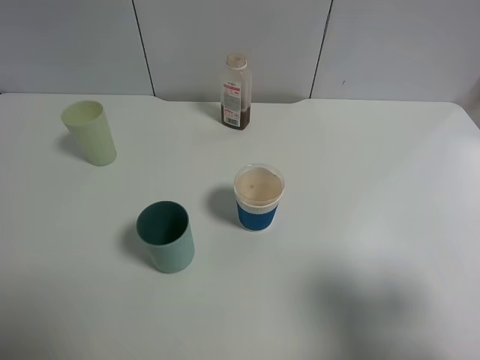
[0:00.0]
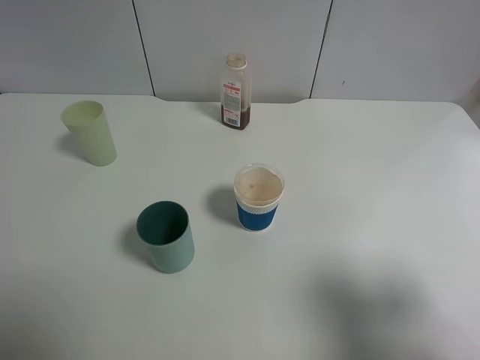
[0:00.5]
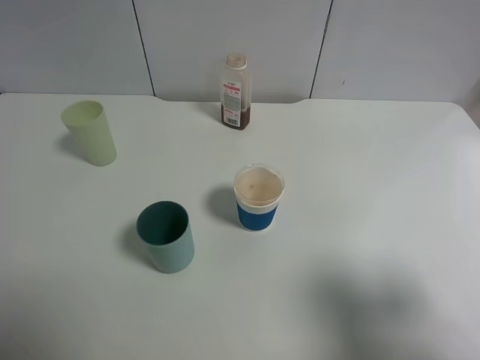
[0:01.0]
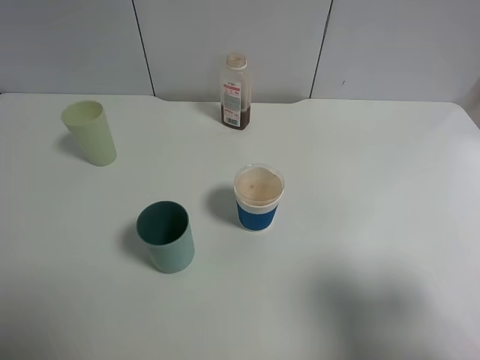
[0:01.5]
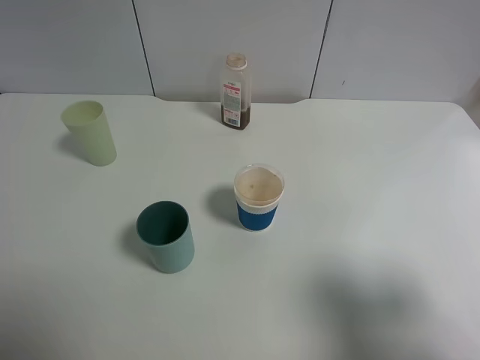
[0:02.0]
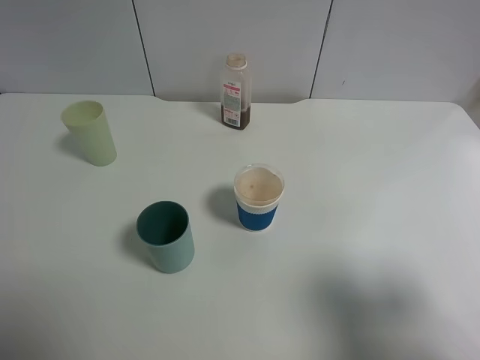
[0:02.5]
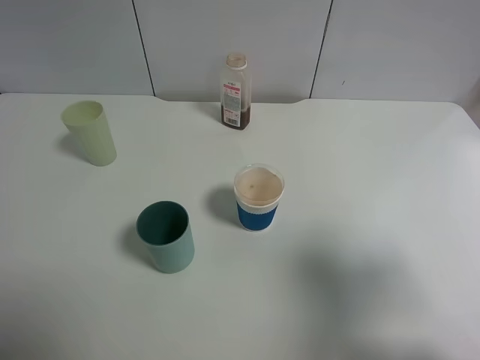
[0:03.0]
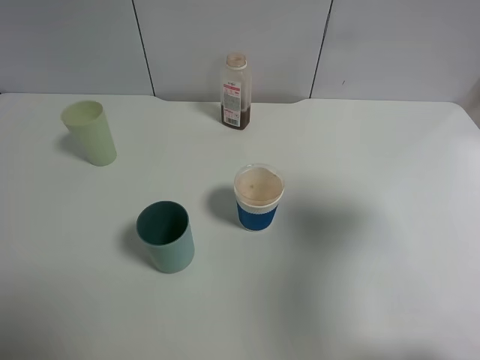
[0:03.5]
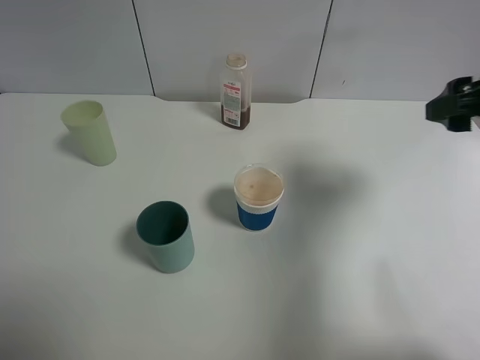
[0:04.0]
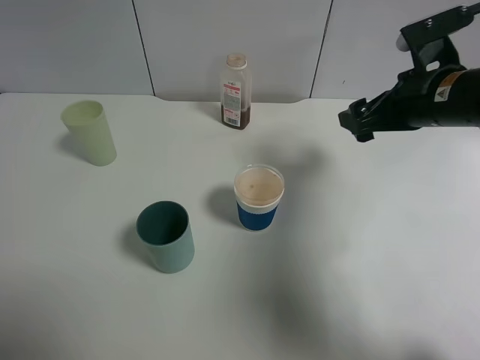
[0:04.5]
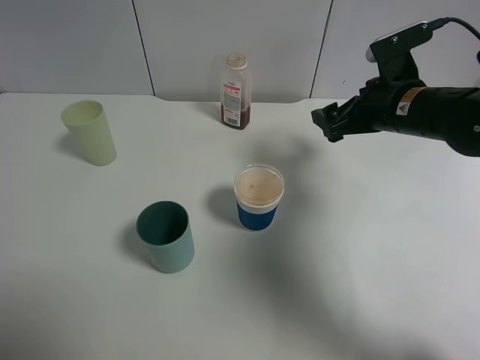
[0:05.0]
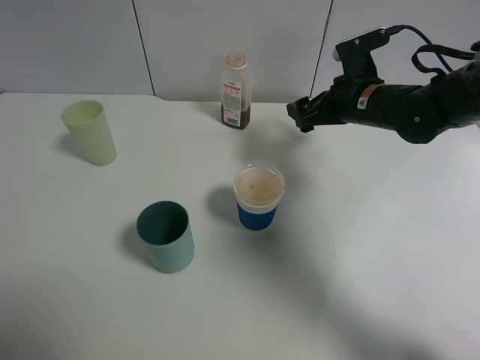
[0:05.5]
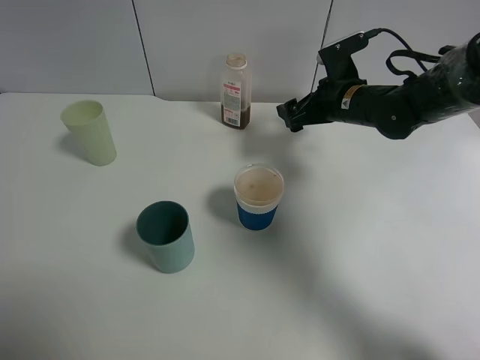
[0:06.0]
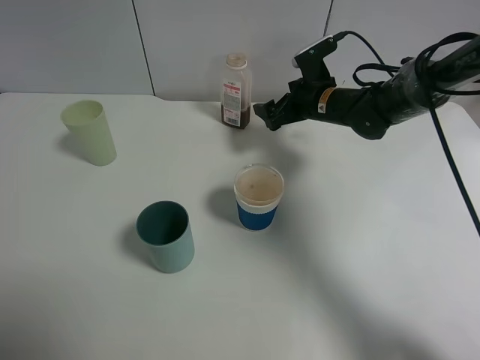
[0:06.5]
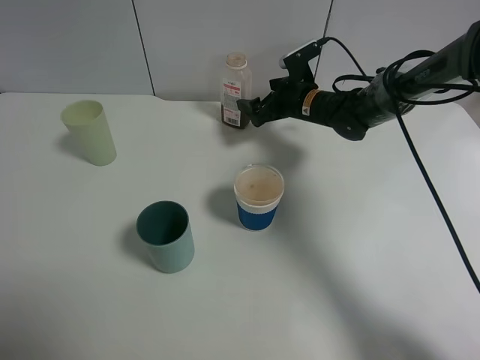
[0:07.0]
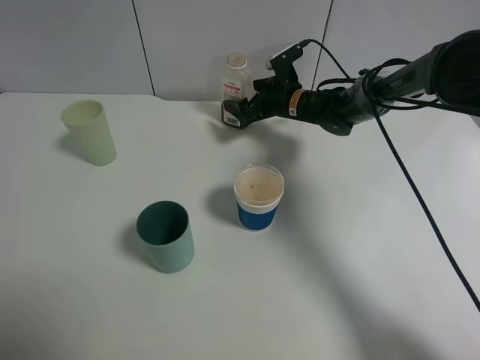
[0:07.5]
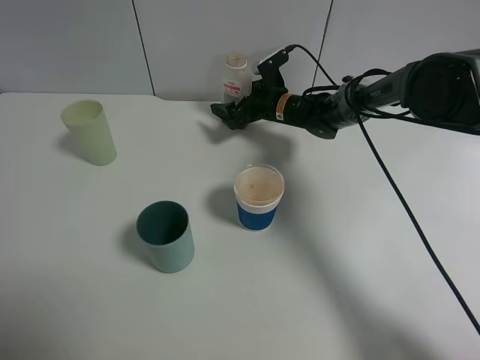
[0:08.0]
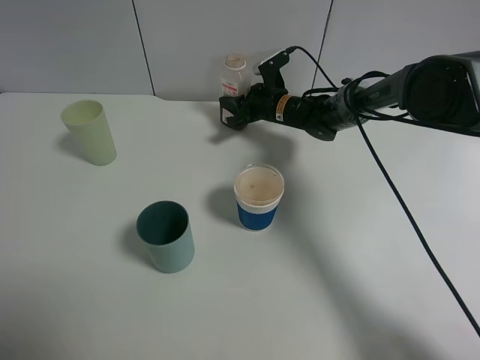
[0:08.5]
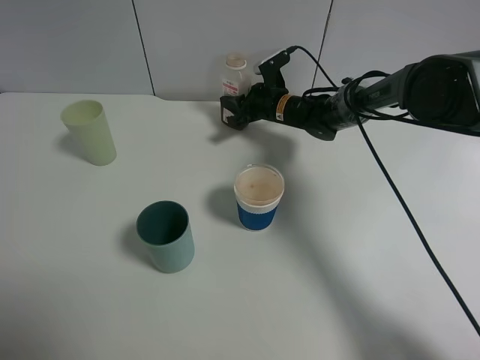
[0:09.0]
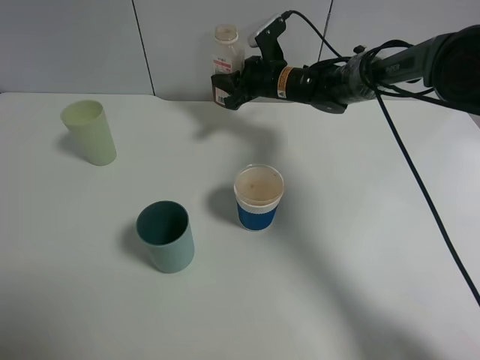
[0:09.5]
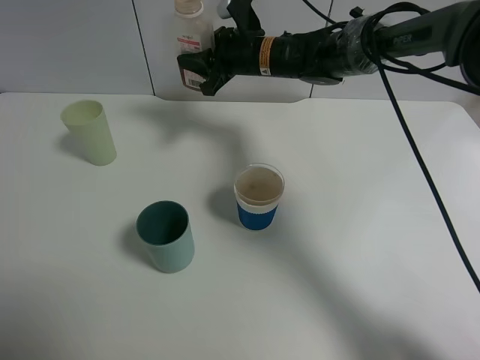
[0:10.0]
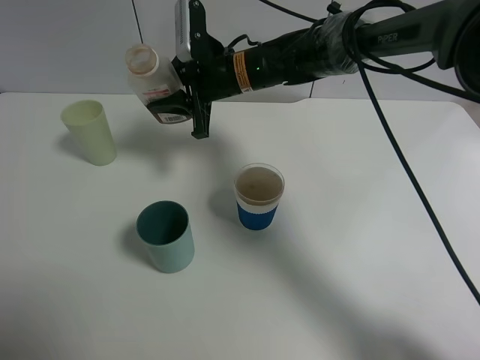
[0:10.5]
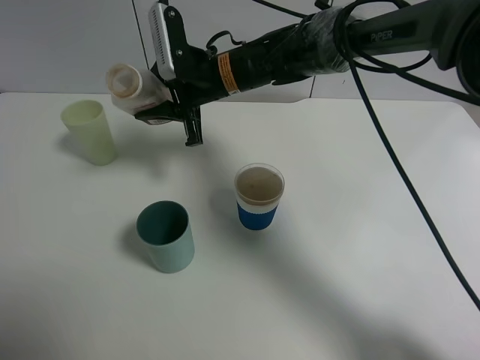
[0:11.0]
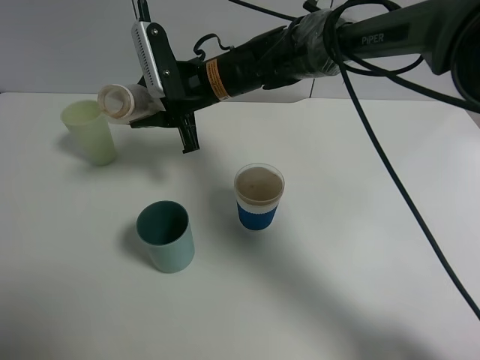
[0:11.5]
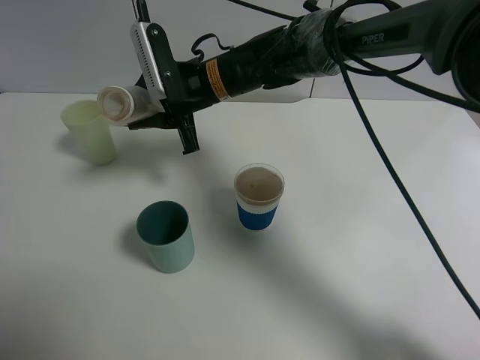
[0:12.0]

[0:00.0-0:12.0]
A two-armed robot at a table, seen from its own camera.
Task of the whole recording: use a gripper to hold the bottle of the drink and pour it into a random cup.
Step, 0:00.0 to 0:08.5: Grasp the cranberry juice bottle with the right gripper.
0:00.0 to 0:02.0: Neither gripper changes place.
0:02.0 to 0:04.0: The right gripper goes approximately 20 cm forward.
0:04.0 to 0:06.0: The right gripper goes roughly 25 cm forward, downward and to the left.
0:06.0 to 0:08.0: The right gripper shifts some 15 cm forward, to the left and downward.
0:08.0 to 0:10.0: The right gripper shifts approximately 15 cm upward and to the left, and closes up.
0:10.0 to 0:12.0: The right gripper moves backward and to the left, about 10 cm.

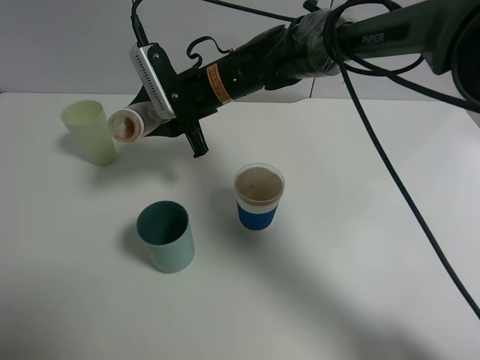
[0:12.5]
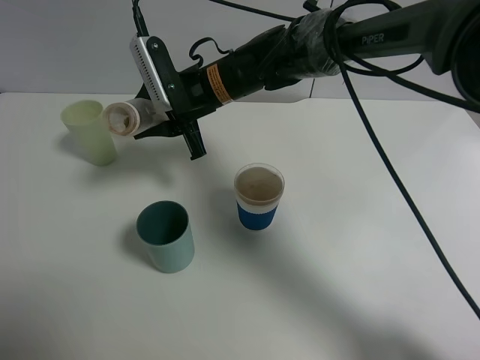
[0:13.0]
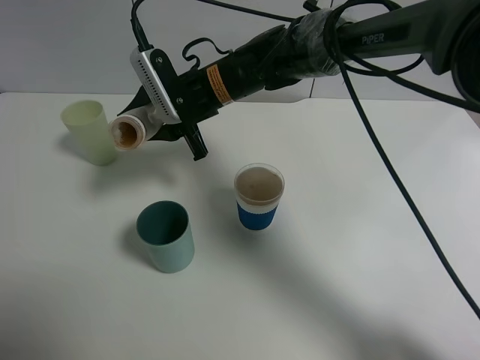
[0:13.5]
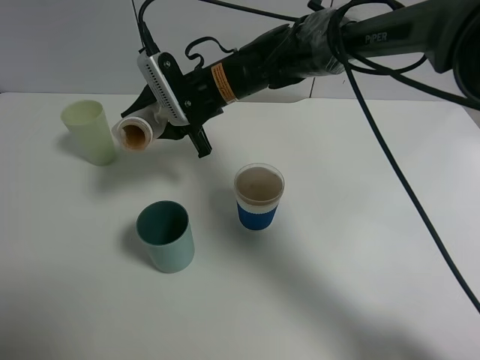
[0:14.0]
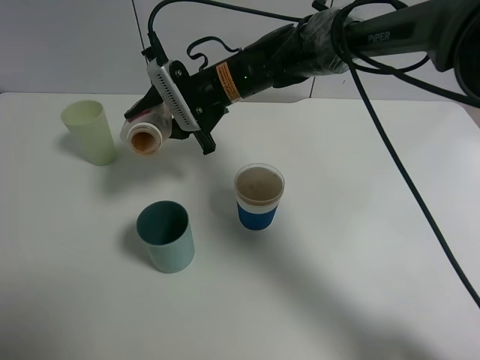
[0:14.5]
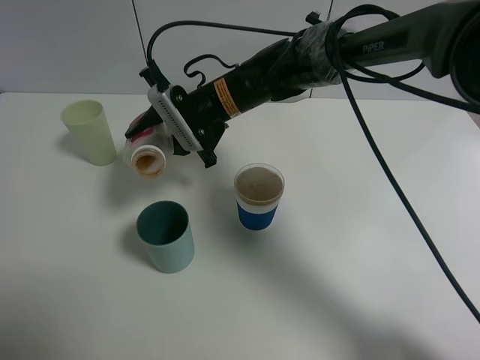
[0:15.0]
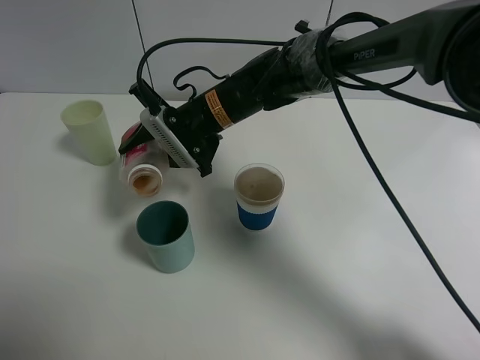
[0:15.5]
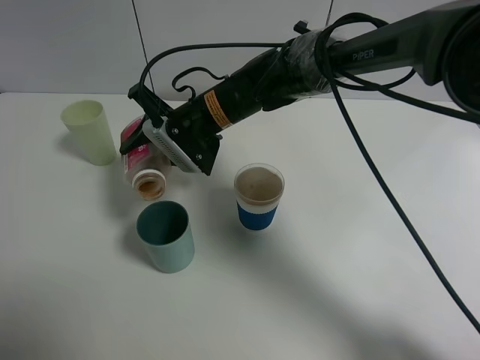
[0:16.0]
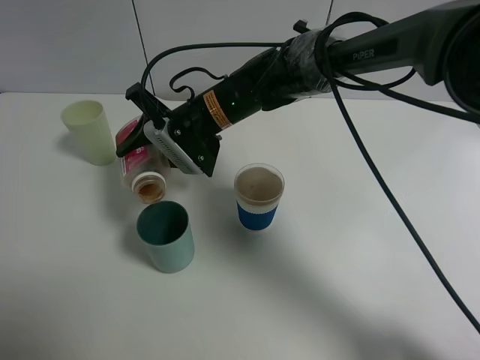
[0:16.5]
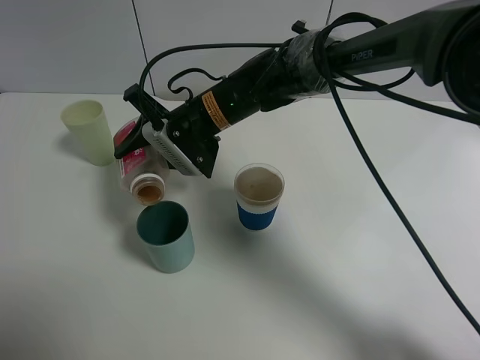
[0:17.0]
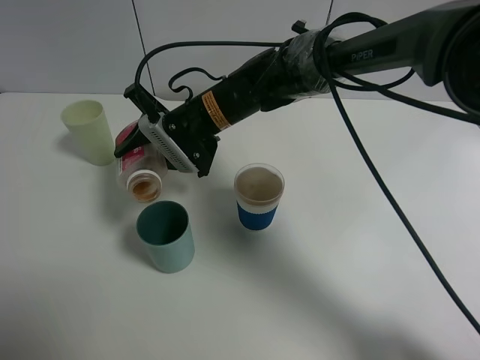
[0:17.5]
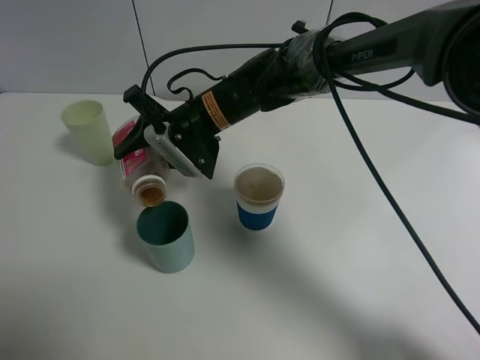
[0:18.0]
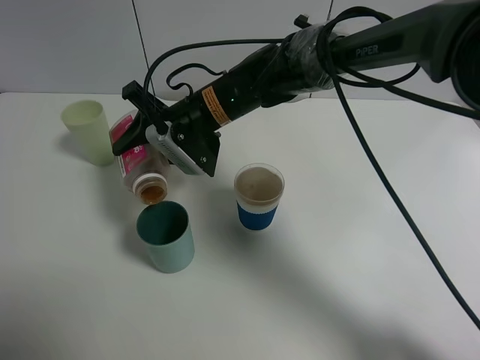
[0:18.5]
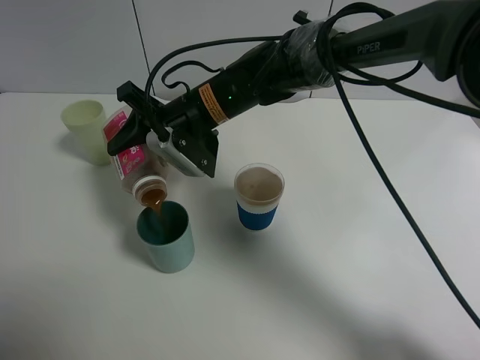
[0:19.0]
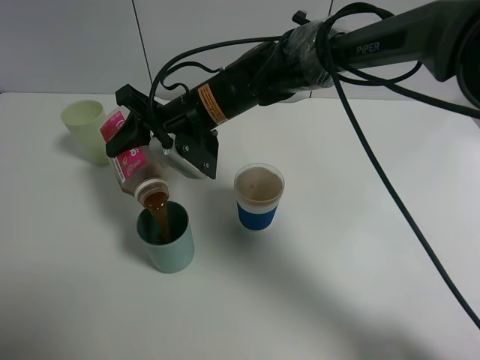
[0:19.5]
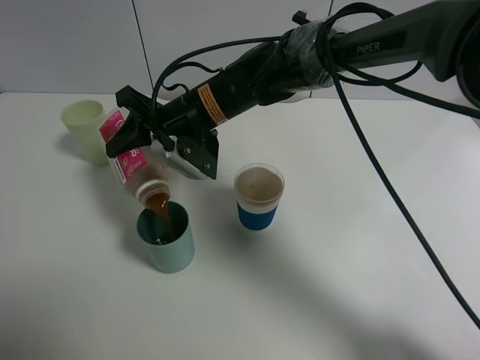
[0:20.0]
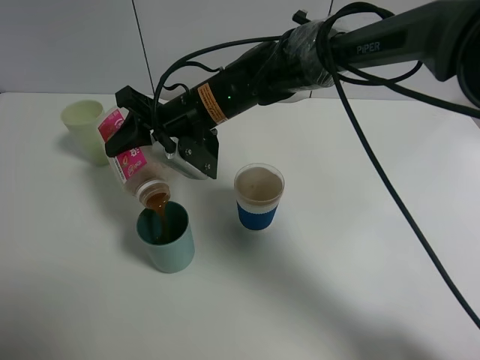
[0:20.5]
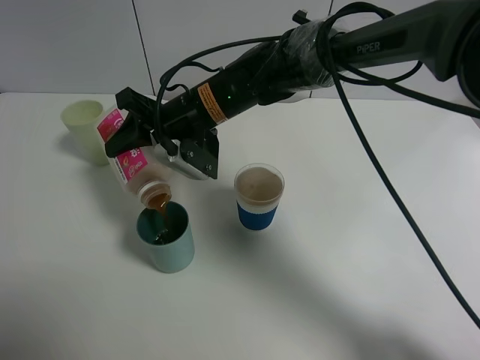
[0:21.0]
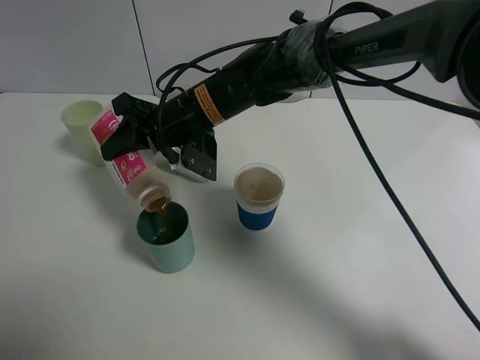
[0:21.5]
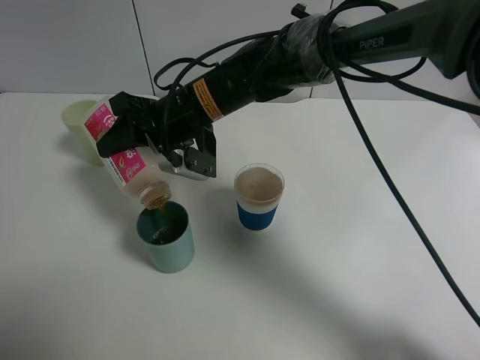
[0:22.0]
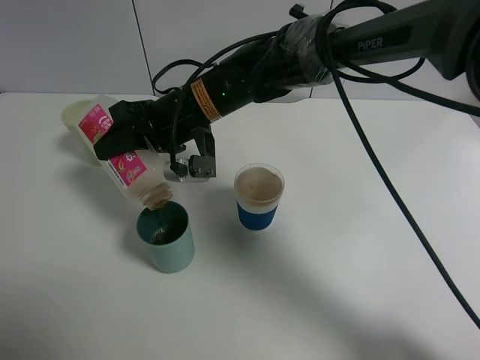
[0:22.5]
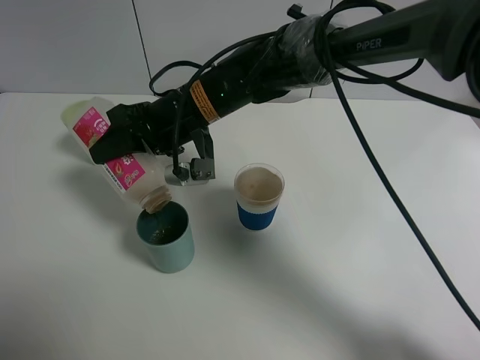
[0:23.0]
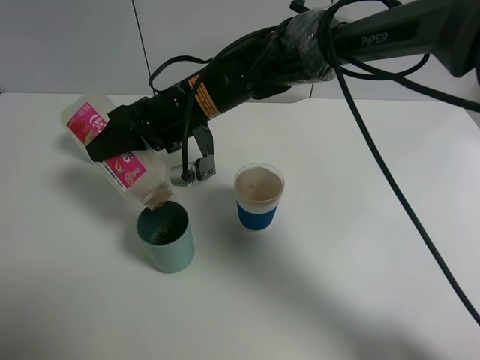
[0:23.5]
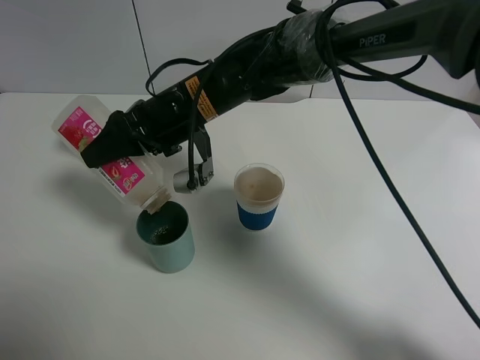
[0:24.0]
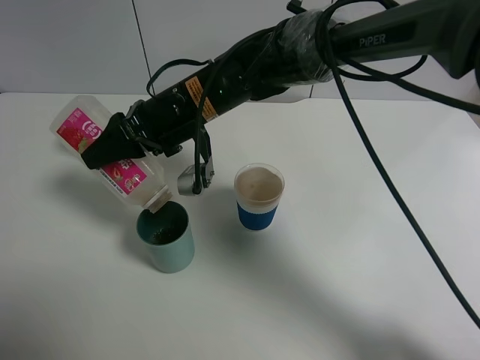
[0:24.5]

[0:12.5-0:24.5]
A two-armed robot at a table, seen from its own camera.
Task of the whole recording: use a gripper to hold the bottle of the drink and pour it into a random cup.
0:12.5 to 0:14.5: The grippers make only small movements.
0:14.5 to 0:16.5: The grippers make only small movements.
0:16.5 to 0:20.5: There are only small adjustments of the grippers.
0:22.5 to 0:24.5: The grippers make only small movements.

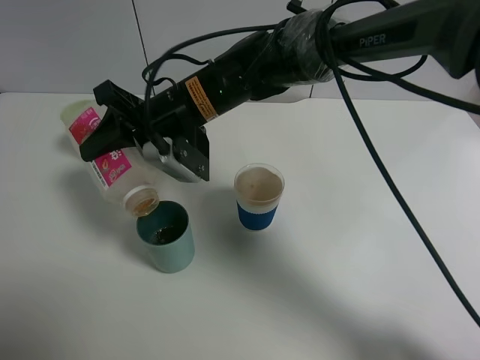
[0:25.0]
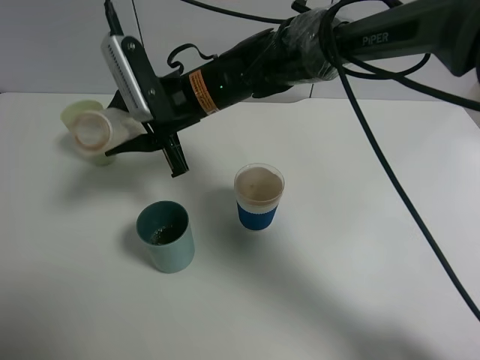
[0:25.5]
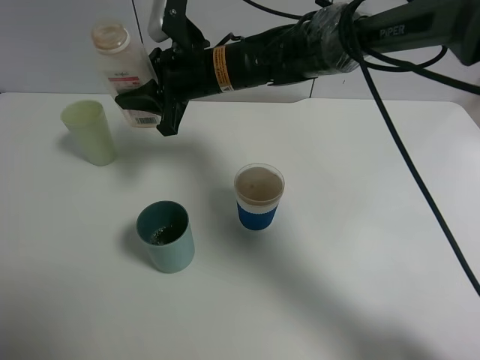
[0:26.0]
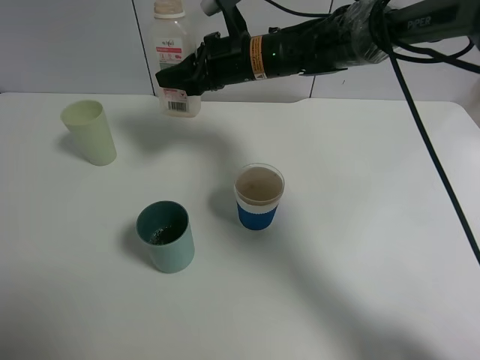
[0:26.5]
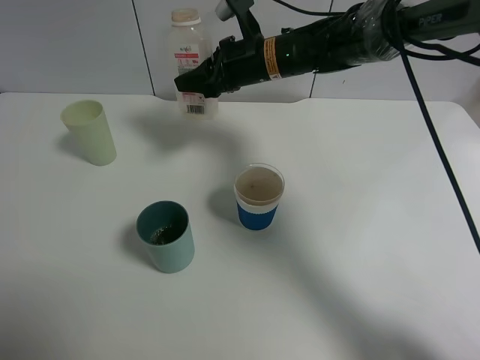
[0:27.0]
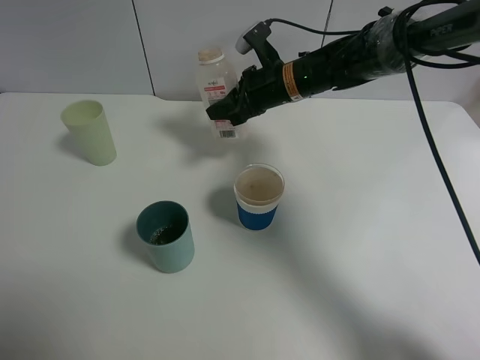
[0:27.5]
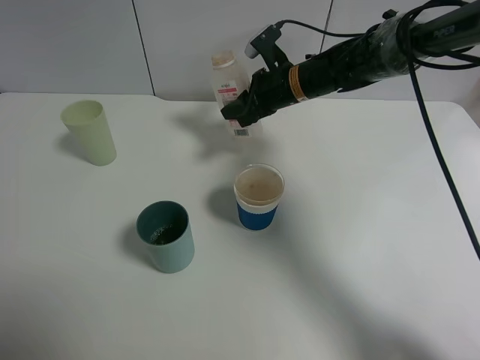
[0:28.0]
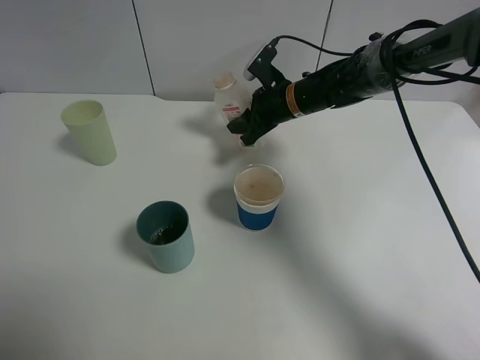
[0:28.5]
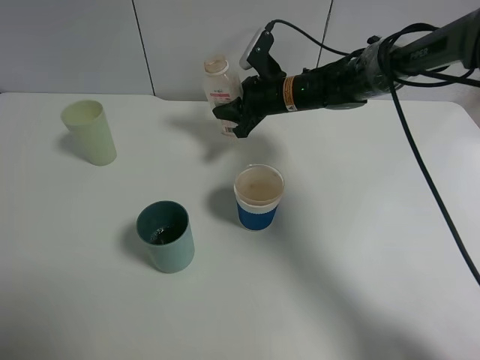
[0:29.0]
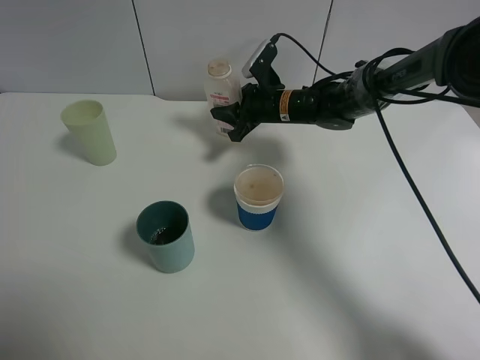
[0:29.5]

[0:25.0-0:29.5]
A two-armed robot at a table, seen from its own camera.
Task of the whole recording: use a gripper to hold the bottle of the drink and pour it into a random cup.
0:25.0 to 0:27.0: The right gripper moves forward and to the right, approximately 15 cm.
0:27.0 to 0:29.5: The right gripper heads downward, covering approximately 10 cm.
